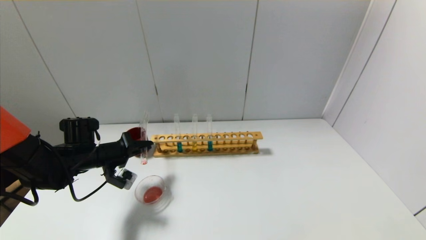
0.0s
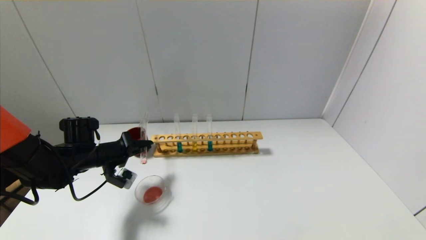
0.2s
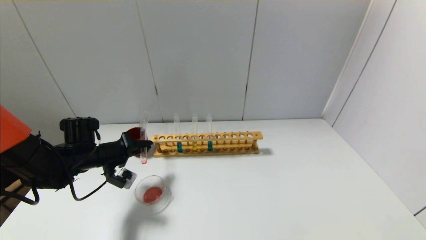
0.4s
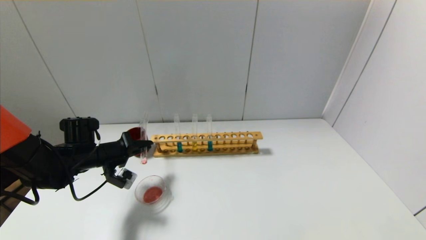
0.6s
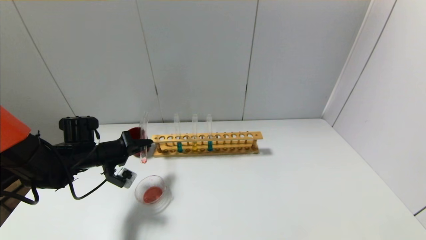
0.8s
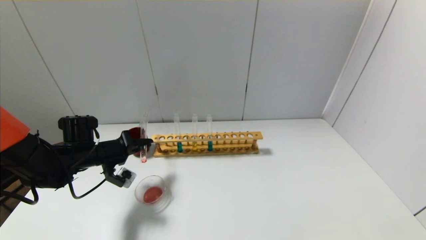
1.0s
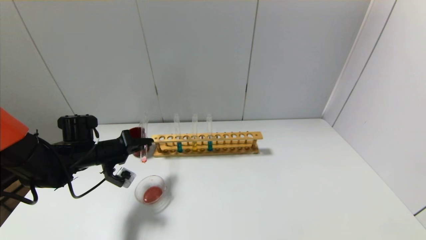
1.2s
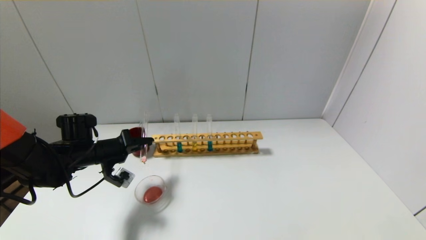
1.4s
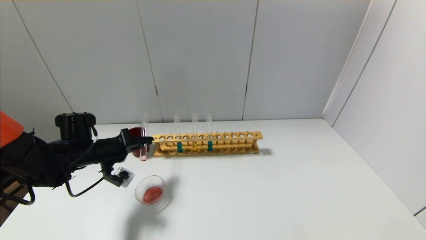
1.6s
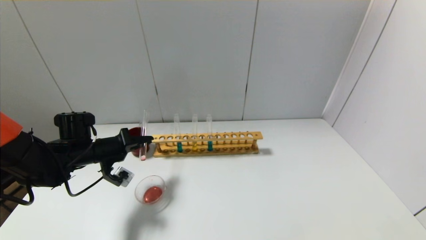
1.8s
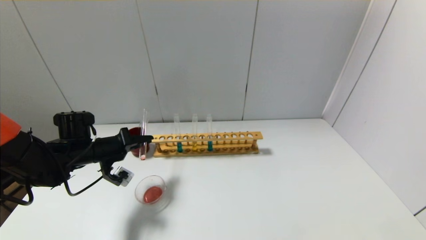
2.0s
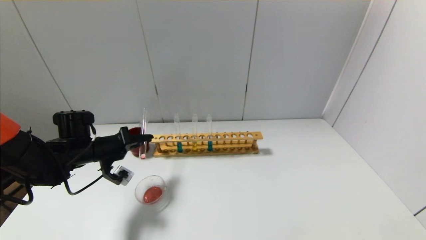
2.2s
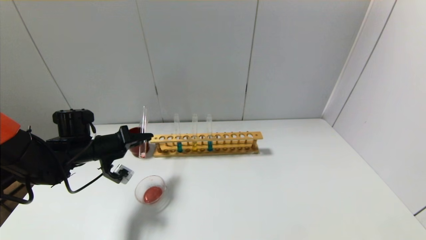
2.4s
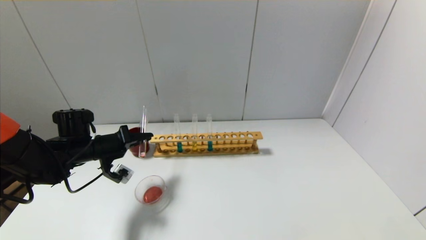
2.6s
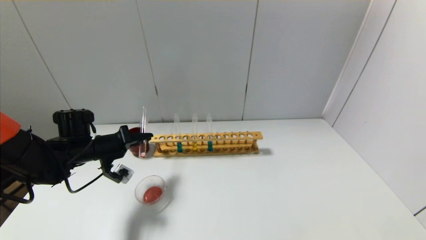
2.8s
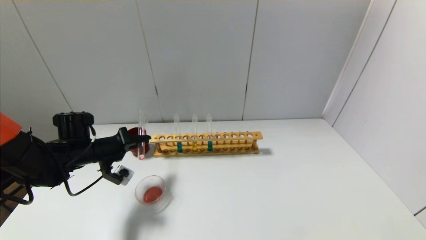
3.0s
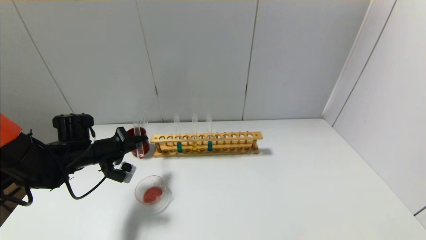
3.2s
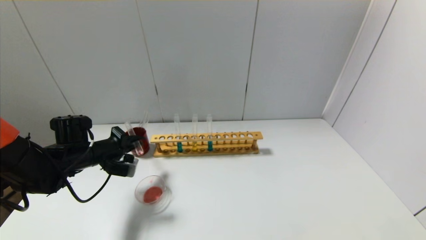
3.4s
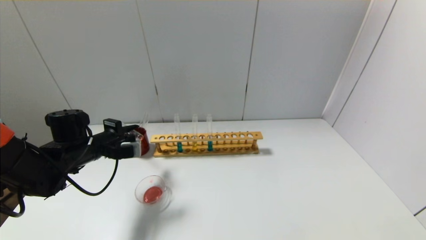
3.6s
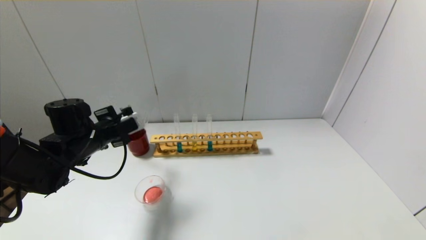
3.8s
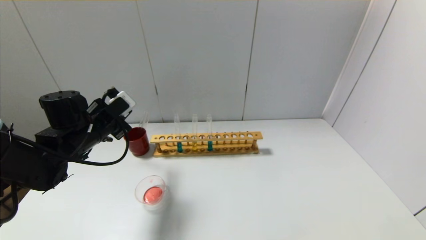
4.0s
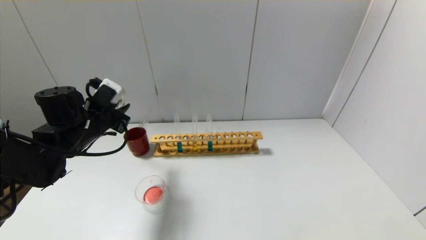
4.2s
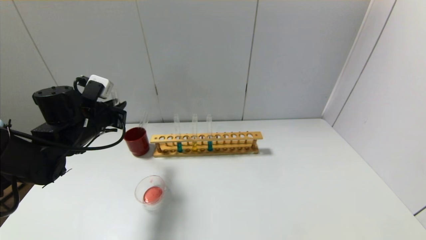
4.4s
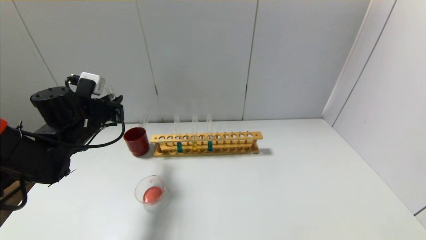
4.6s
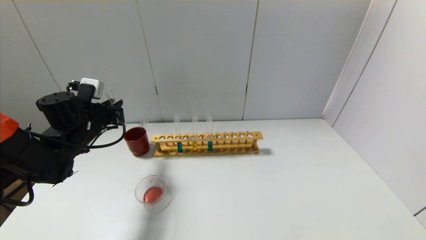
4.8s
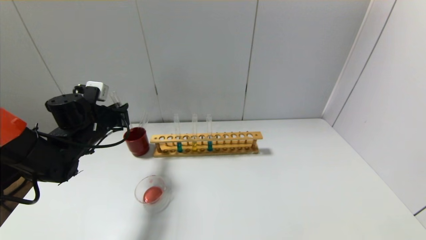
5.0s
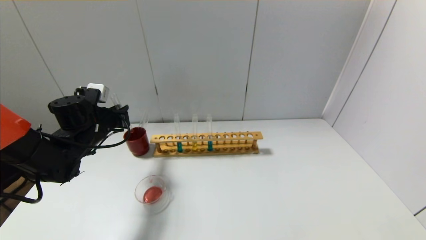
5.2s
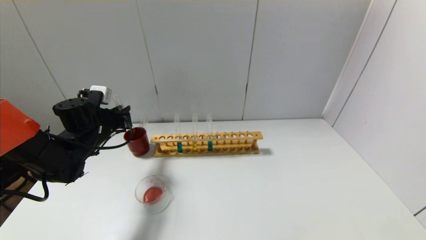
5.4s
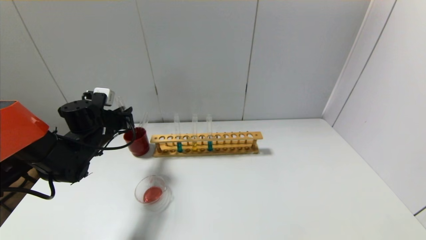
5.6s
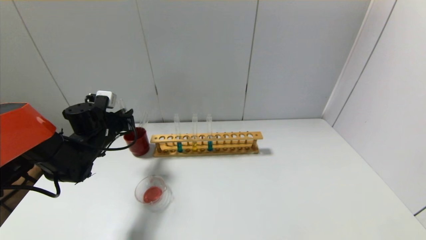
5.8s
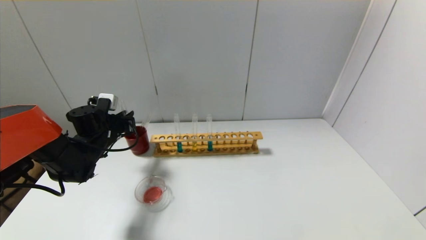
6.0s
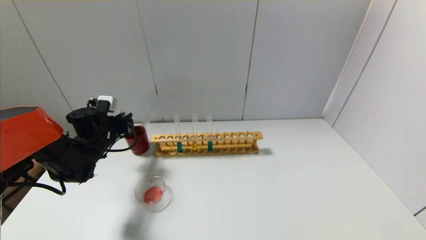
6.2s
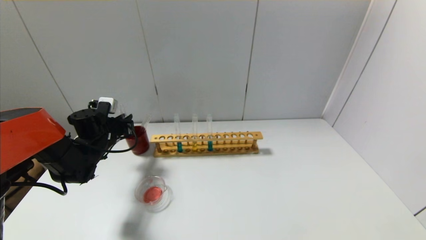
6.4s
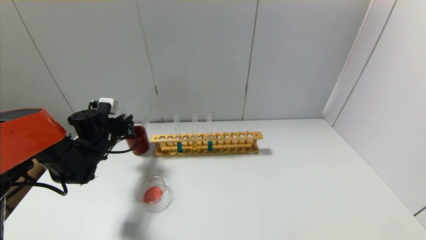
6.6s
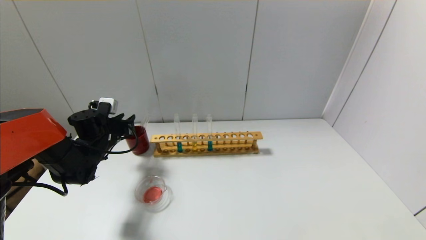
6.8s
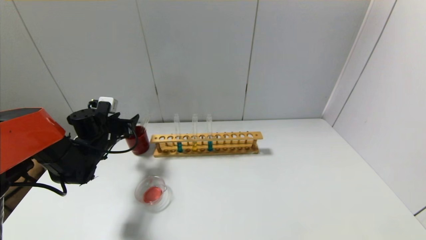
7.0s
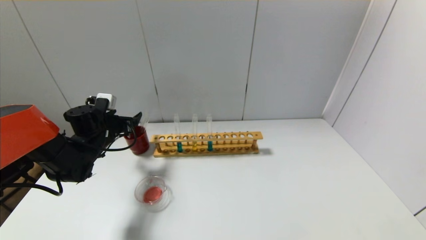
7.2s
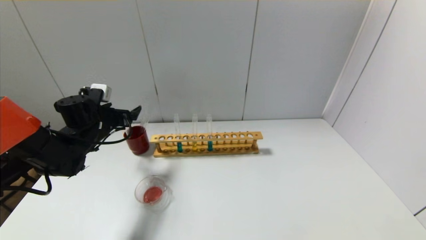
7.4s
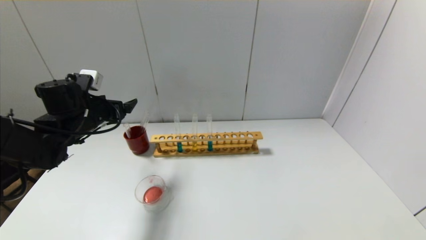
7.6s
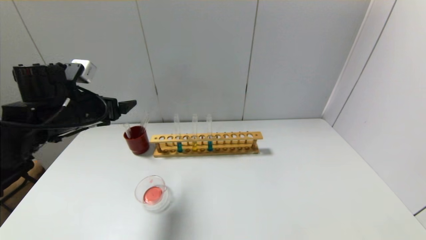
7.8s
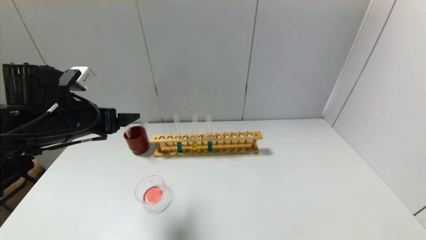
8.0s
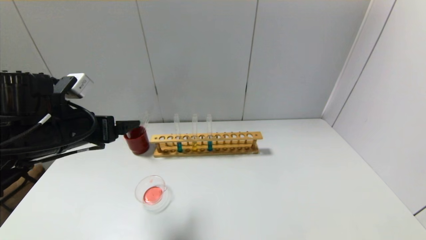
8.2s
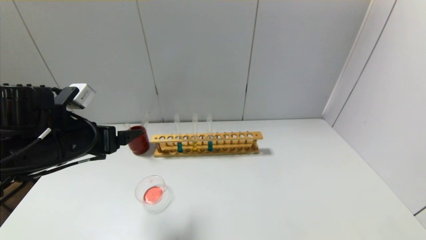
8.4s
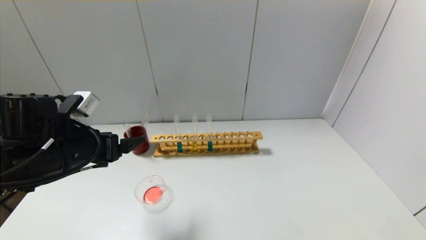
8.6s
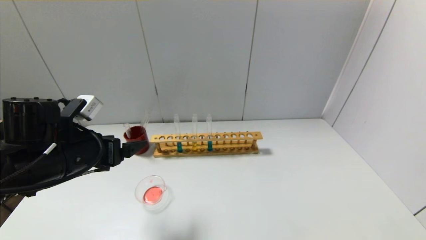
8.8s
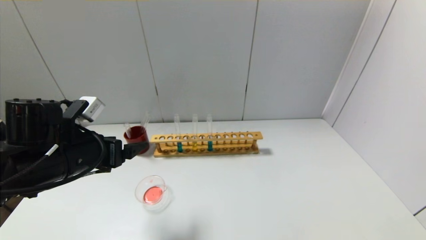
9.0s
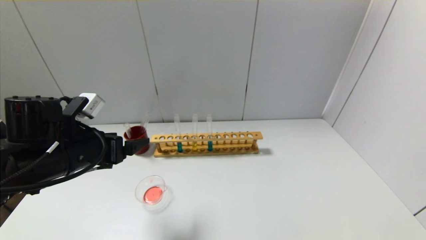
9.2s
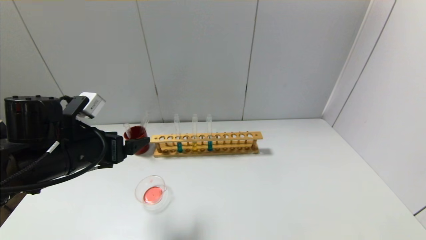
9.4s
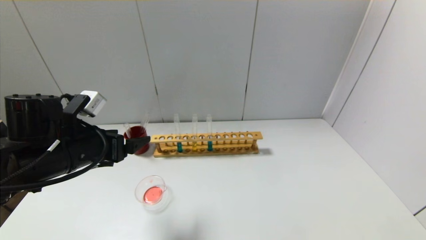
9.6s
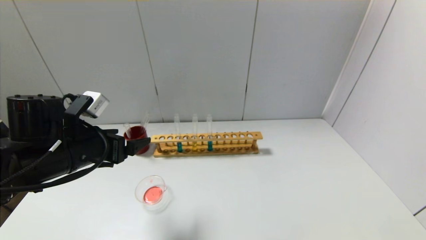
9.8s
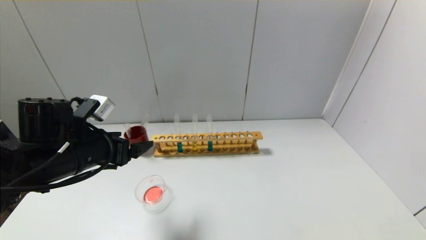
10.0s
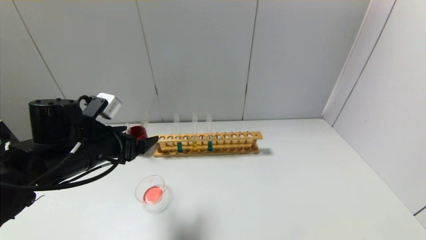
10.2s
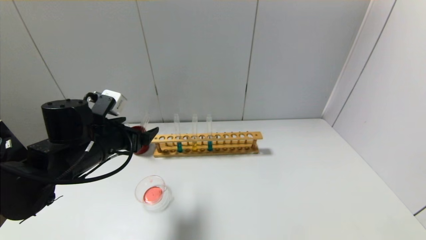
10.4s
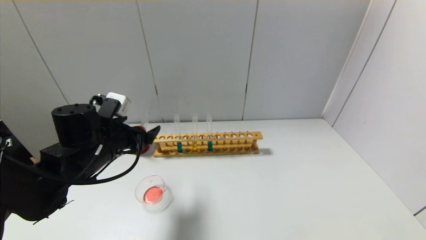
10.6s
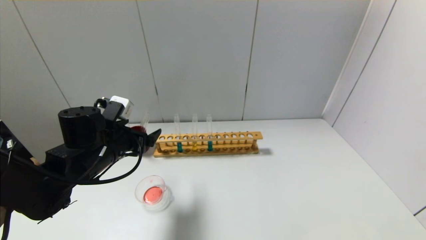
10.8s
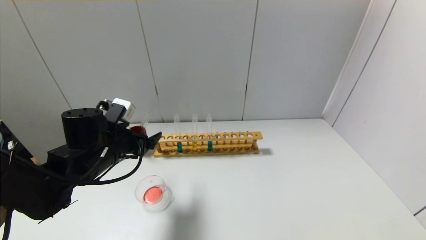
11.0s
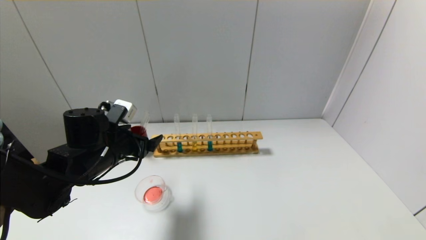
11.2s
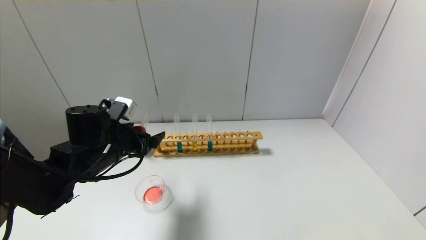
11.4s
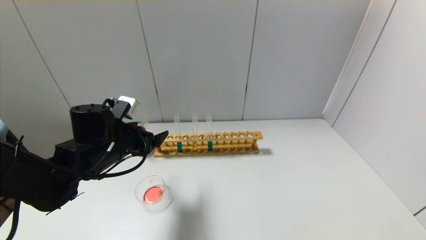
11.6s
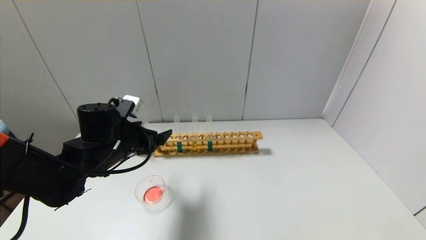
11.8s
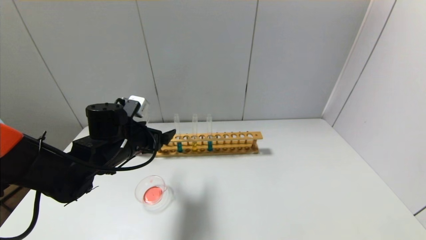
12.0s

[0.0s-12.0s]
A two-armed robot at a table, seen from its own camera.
Step, 0.0s to 3.6s: Pour the red reagent into the graduated cylinder with the left gripper.
Step, 3.8s to 6.8s: Place the test tube into the brown cup with the left gripper.
0.0s to 3.0s: The grippers make only small movements.
3.0s to 4.4s: The left gripper shifts some 5 cm upward.
4.4s to 6.0s: The left gripper heads downward and forward, covering approximately 10 cm.
6.0s to 7.6s: The left gripper is displaced upward by approximately 10 cm, and opens up.
7.6s to 9.0s: The left gripper is displaced backward by about 10 cm.
9.0s to 10.4s: The left gripper ends up some 5 cm from where it was.
10.4s to 12.0s: The left gripper changes place by some 5 cm.

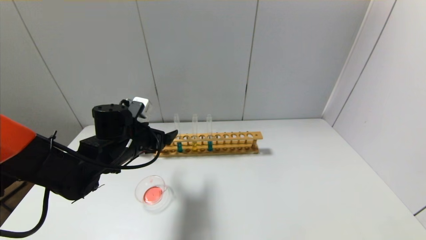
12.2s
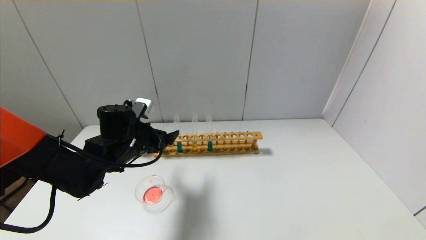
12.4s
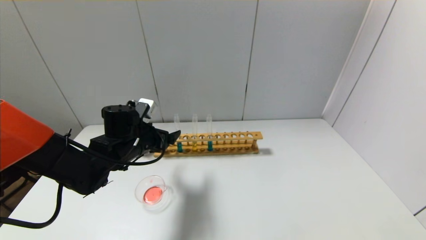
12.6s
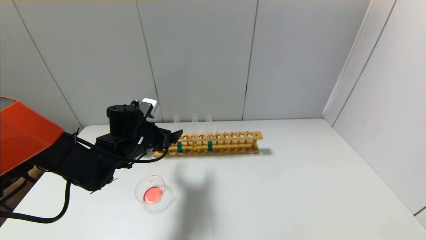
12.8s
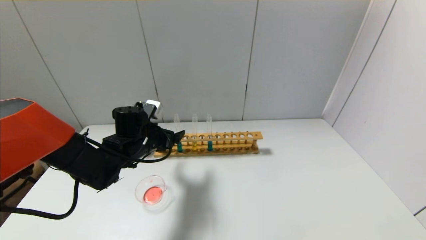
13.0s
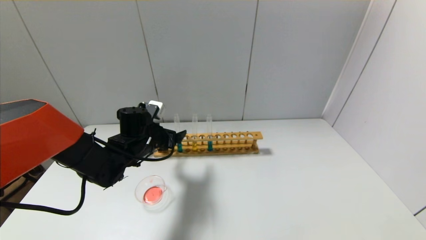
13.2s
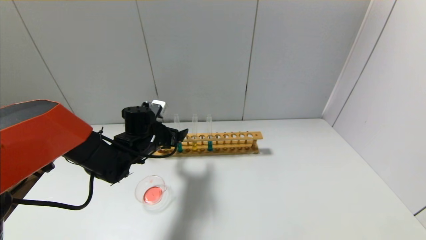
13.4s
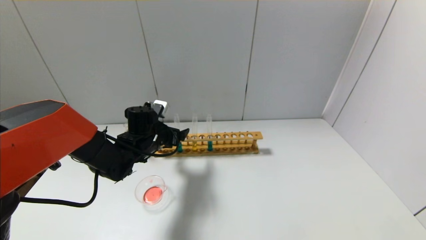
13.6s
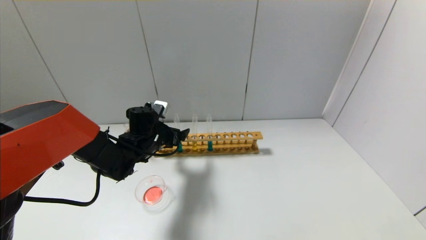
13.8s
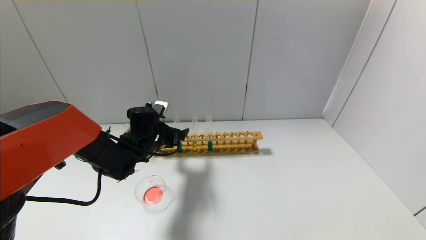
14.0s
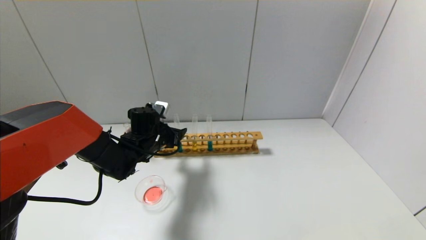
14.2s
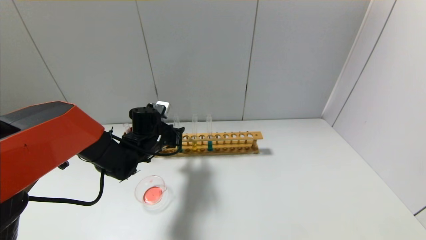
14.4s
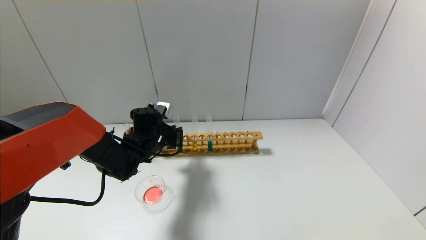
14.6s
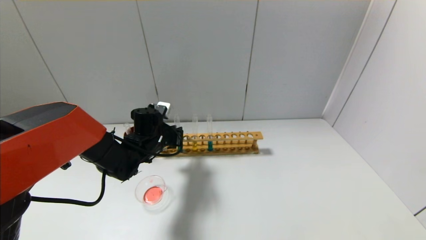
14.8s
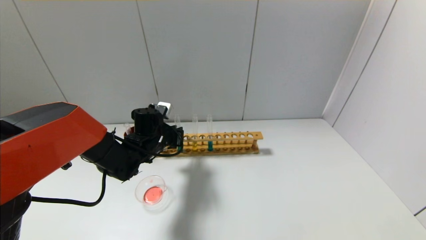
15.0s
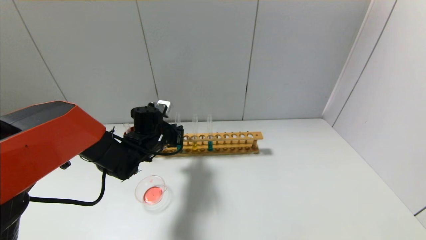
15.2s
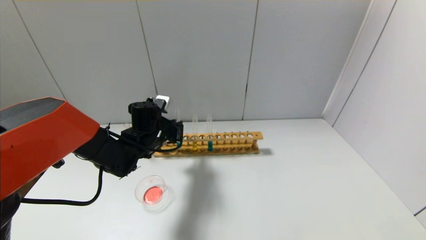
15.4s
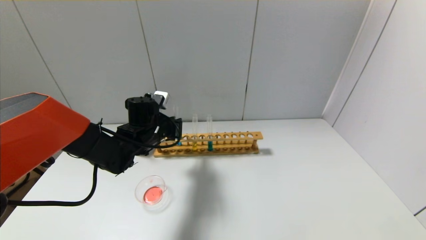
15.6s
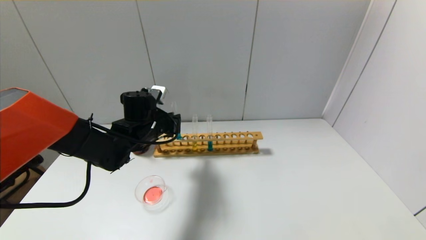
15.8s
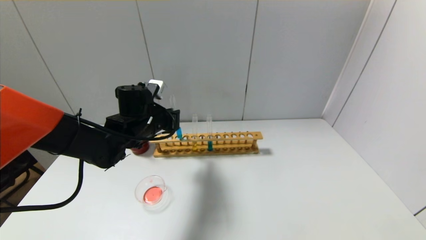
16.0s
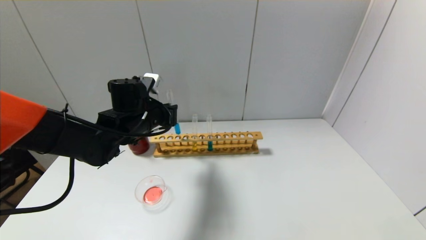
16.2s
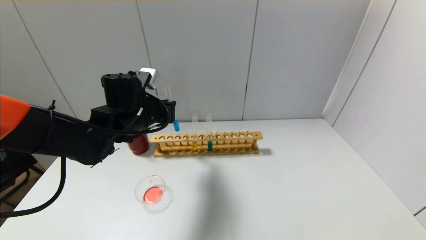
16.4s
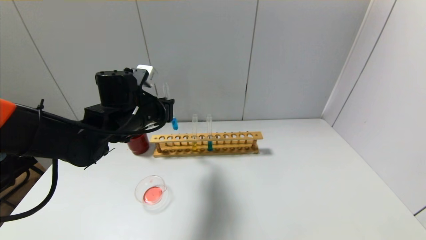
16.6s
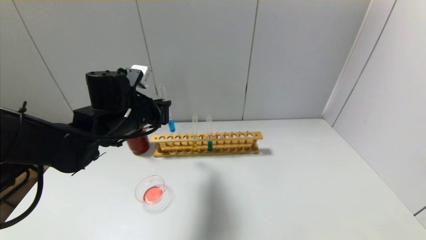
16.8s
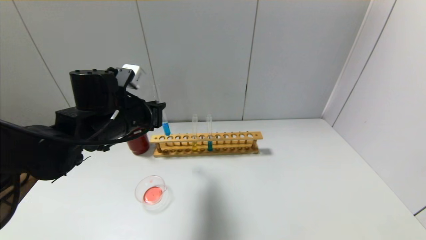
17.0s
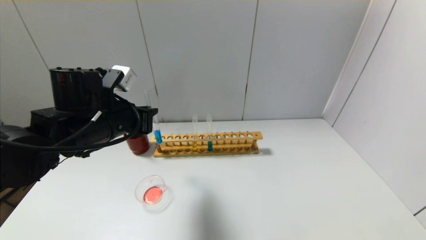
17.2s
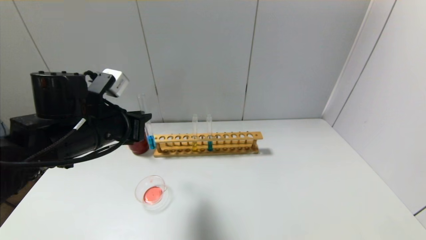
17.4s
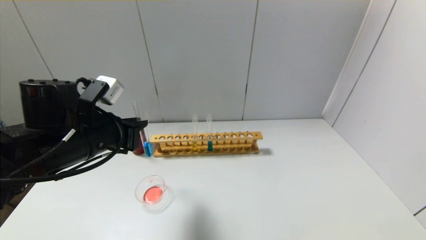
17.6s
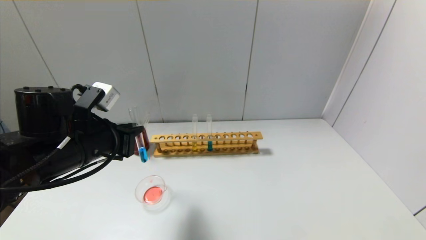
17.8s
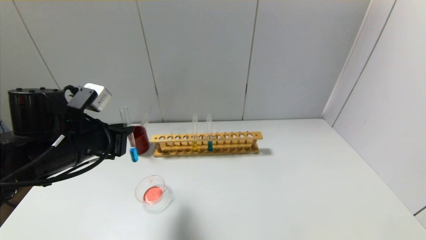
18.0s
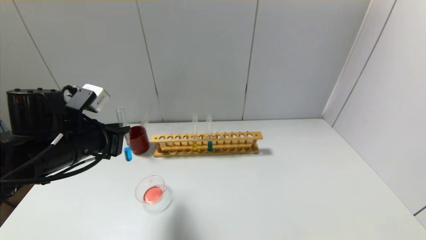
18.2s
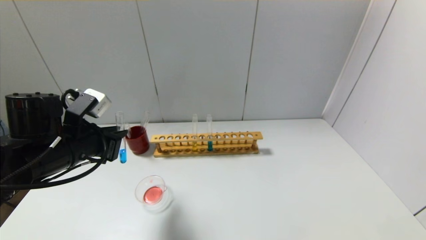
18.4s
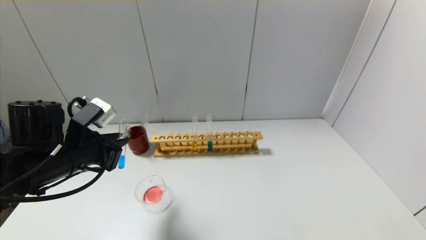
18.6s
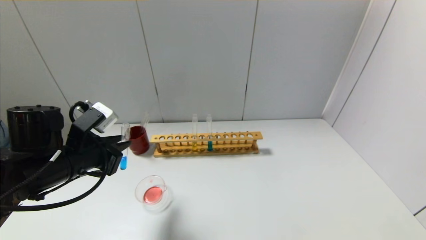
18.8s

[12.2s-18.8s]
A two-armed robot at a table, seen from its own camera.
Step, 12.2s to 14.6s: Grasp the blue reagent with the left gripper.
12.2s to 13.8s: The left gripper travels forward by some 5 cm.
13.8s to 15.4s: The left gripper closes.
15.4s to 17.2s: The left gripper moves backward and upward, some 15 cm.
17.2s to 18.8s: The left gripper goes some 5 cm to the left.
